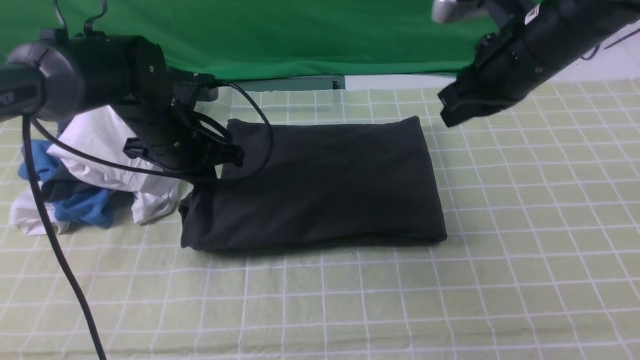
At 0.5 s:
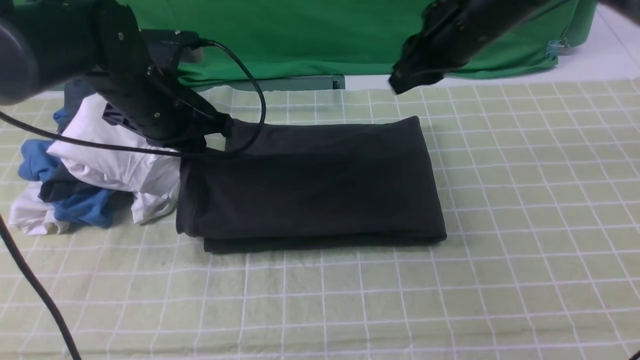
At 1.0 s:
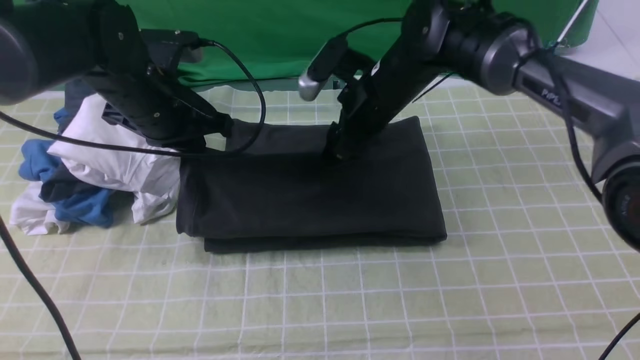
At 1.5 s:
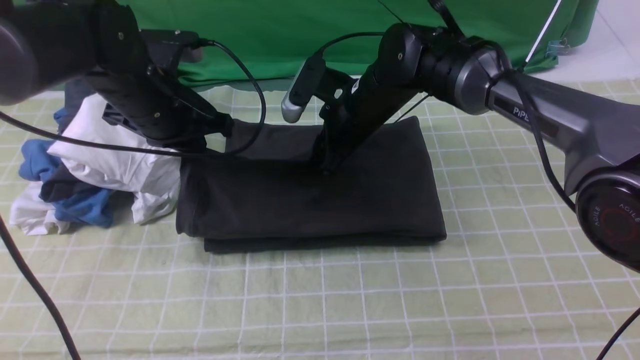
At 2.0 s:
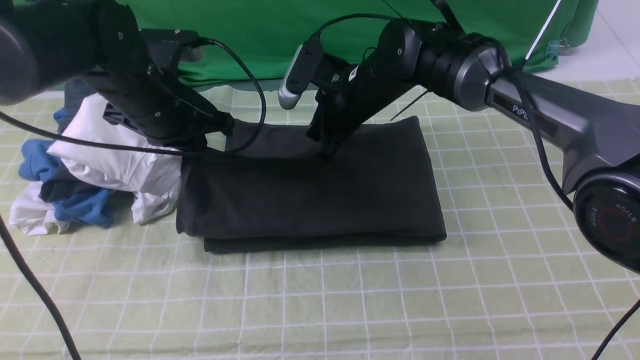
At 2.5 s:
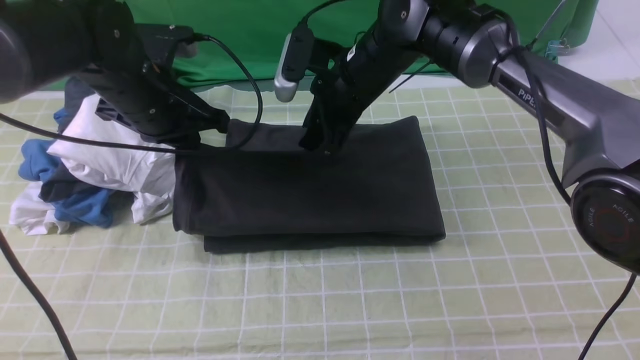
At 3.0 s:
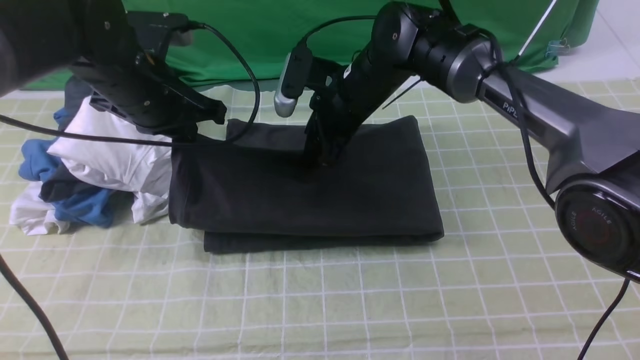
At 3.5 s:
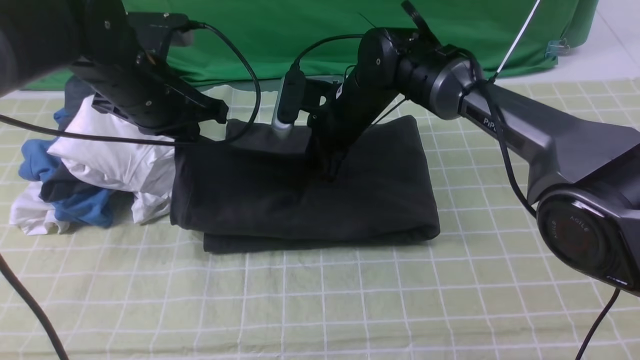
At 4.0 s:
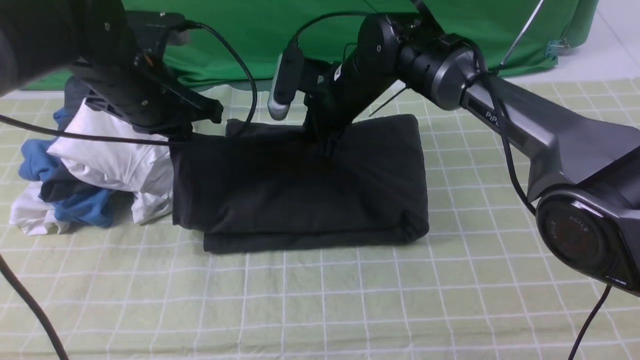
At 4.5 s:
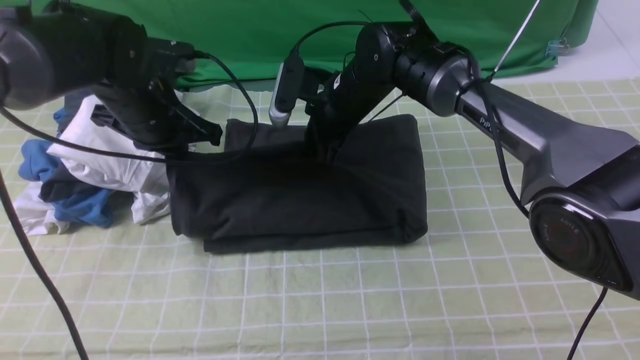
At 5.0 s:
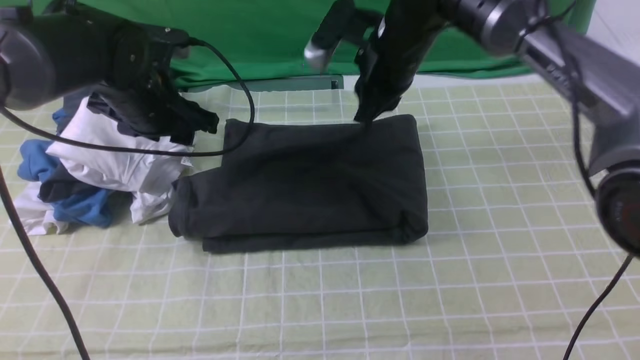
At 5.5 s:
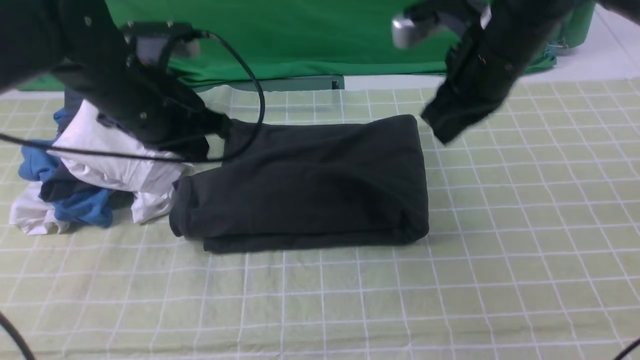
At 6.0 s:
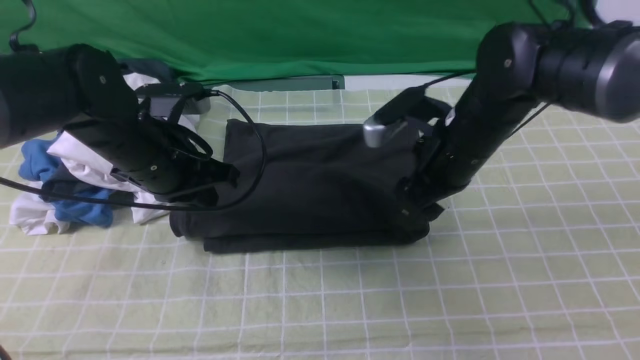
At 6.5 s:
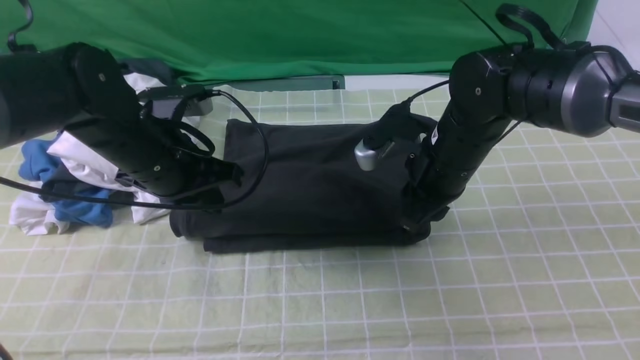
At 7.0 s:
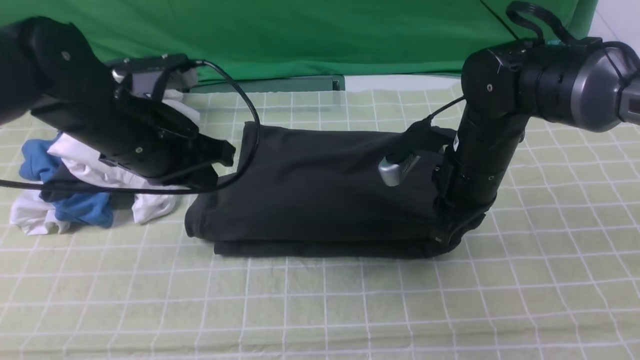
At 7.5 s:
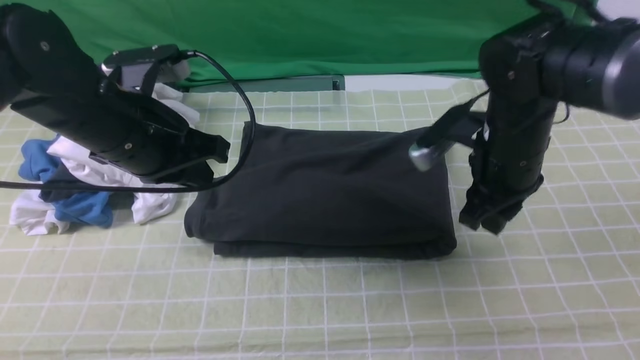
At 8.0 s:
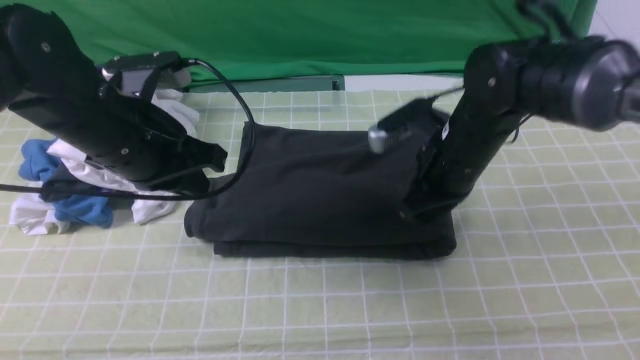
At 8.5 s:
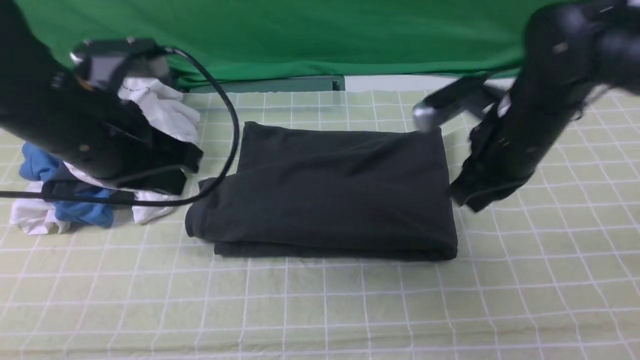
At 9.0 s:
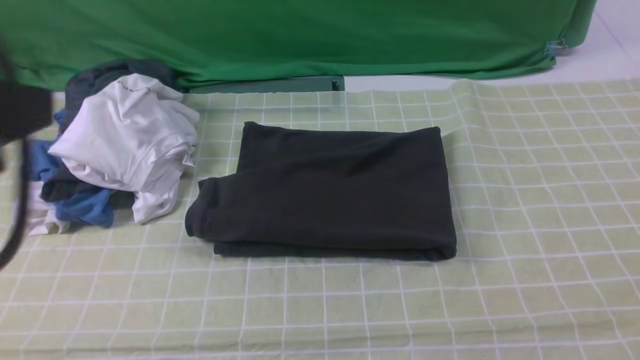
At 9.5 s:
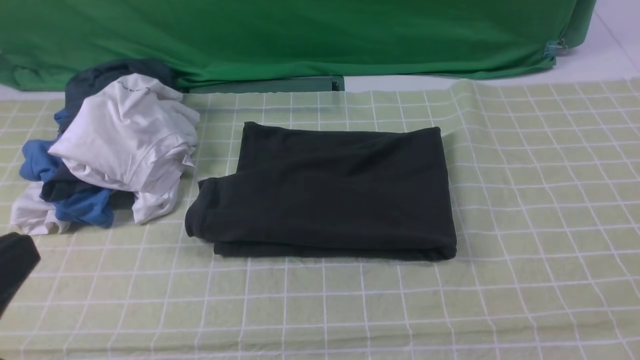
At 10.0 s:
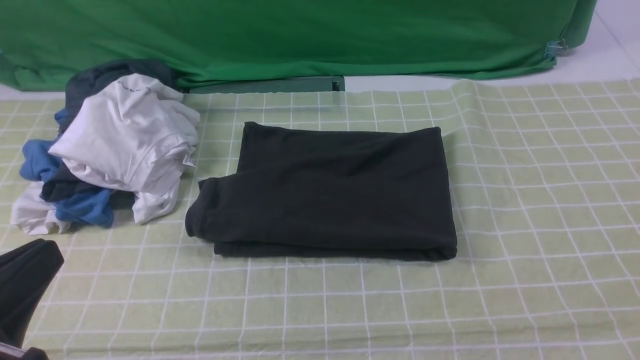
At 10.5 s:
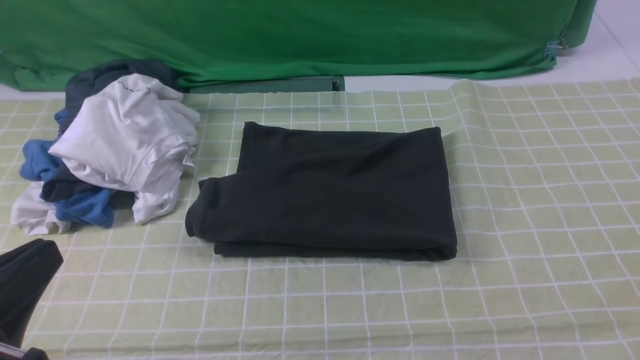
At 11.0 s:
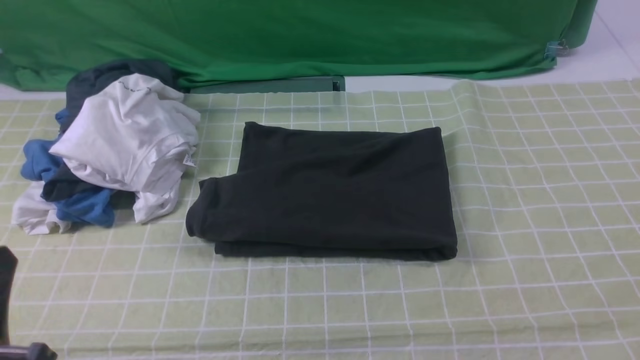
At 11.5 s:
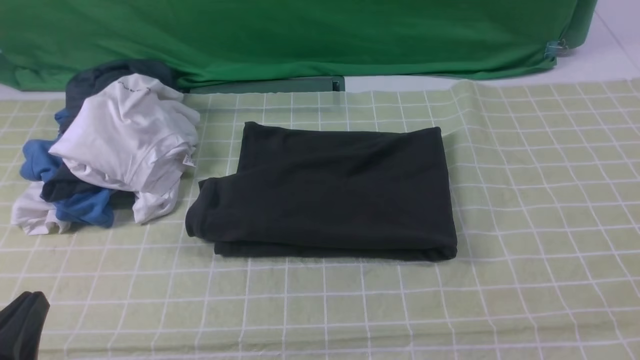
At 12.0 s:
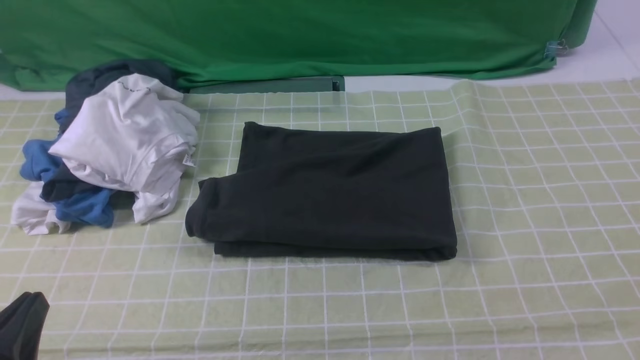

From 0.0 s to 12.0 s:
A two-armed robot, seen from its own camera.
From 0.0 s to 2.0 s: The right gripper is displaced to the left, downward and forward by roughly 20 cm, and opens, then closes once more.
From 2.0 s to 4.0 s: The right gripper opens and closes again.
From 4.0 s to 6.0 s: The left gripper ends up approximately 5 cm from where it was, and opens, then closes once more. Meanwhile the right gripper heads to the right and backward, covering some 15 cm, and opens up.
From 6.0 s to 8.0 s: The left gripper changes place by about 5 cm, while the right gripper closes up.
From 8.0 s to 10.0 s: The left gripper heads backward, covering approximately 25 cm. The right gripper shifts roughly 40 cm backward, to the right and upward.
From 10.0 s to 12.0 s: The left gripper is displaced downward by about 10 cm.

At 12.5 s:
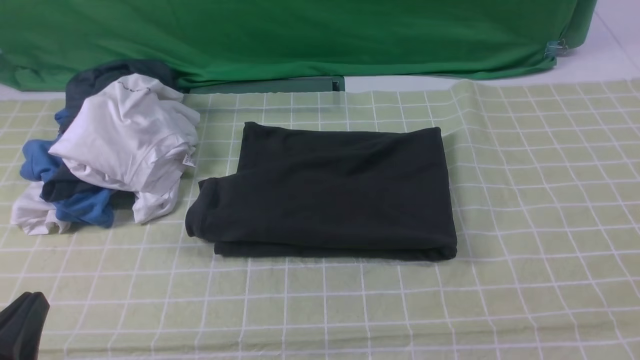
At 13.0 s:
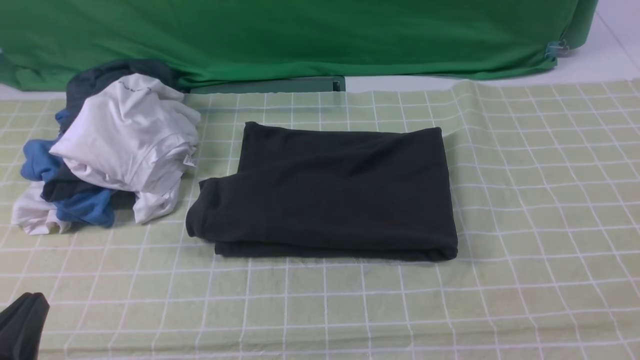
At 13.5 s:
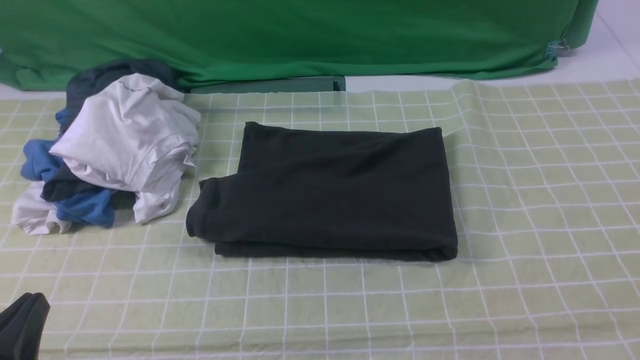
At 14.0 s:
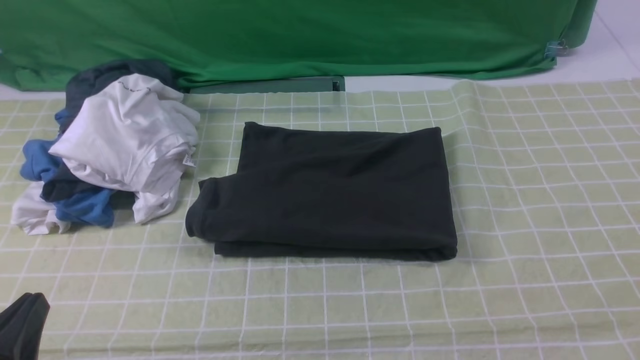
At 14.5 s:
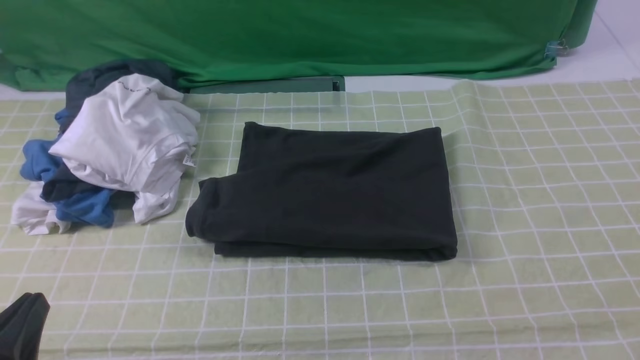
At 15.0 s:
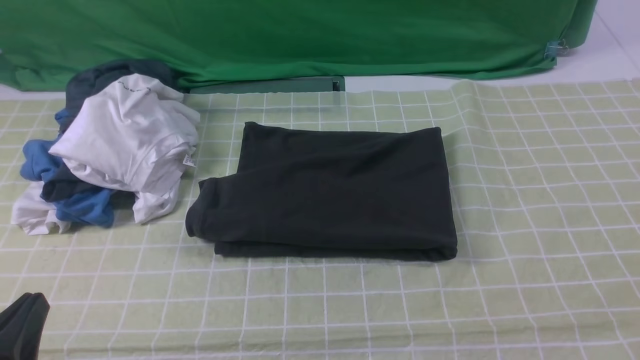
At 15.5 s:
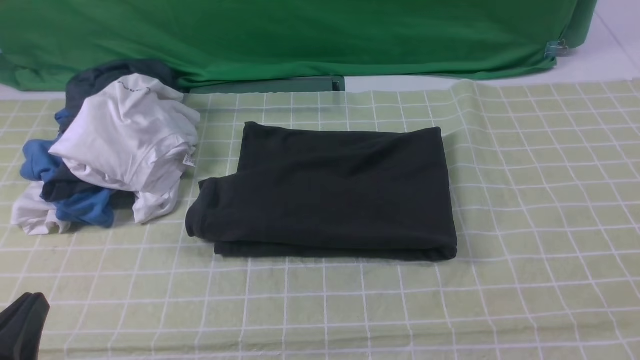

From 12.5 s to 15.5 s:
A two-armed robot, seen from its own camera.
From 14.0 s to 15.5 s: Neither gripper changes place.

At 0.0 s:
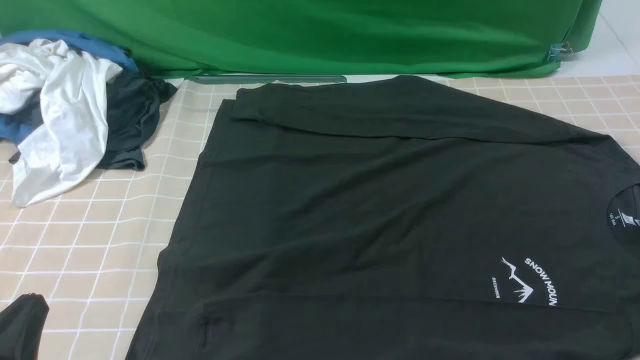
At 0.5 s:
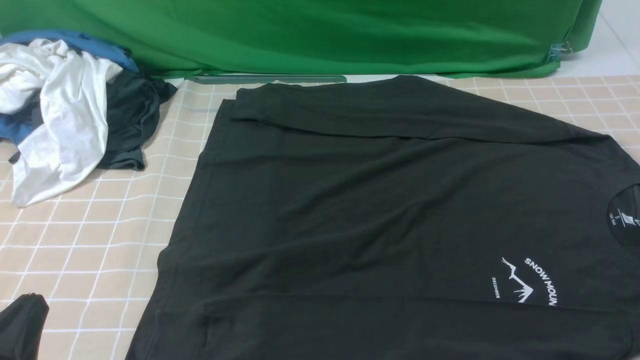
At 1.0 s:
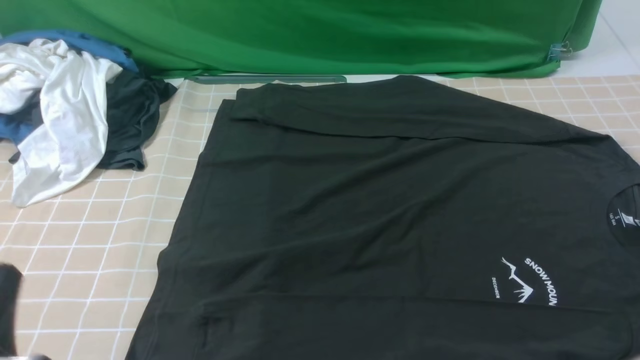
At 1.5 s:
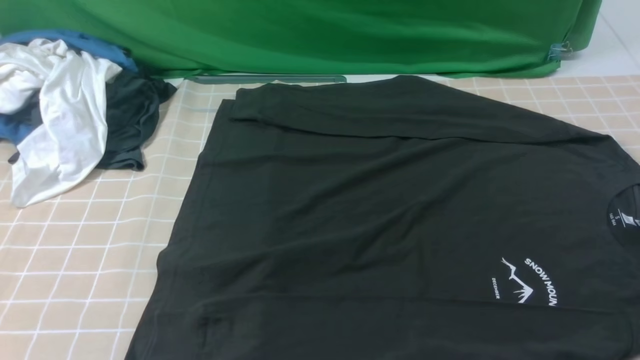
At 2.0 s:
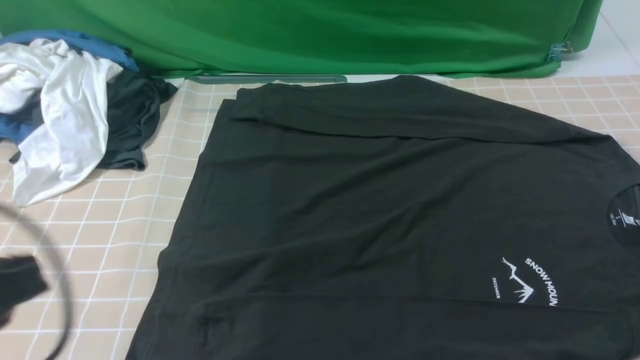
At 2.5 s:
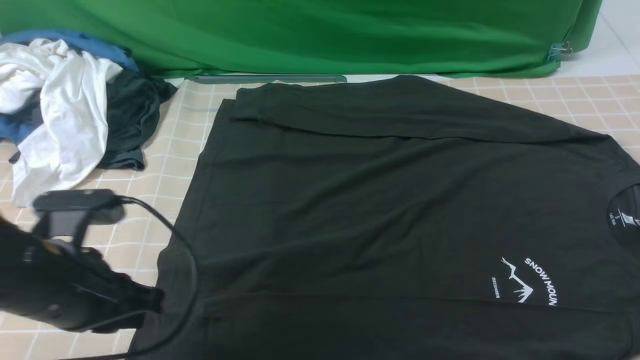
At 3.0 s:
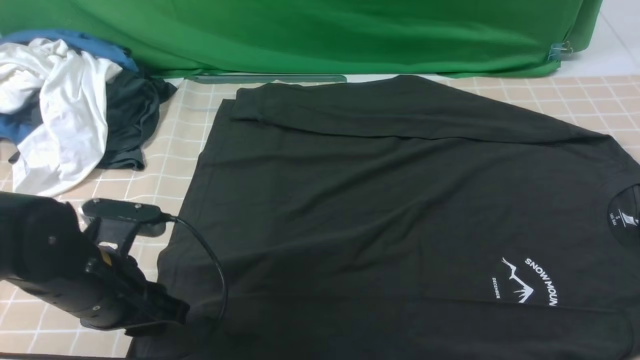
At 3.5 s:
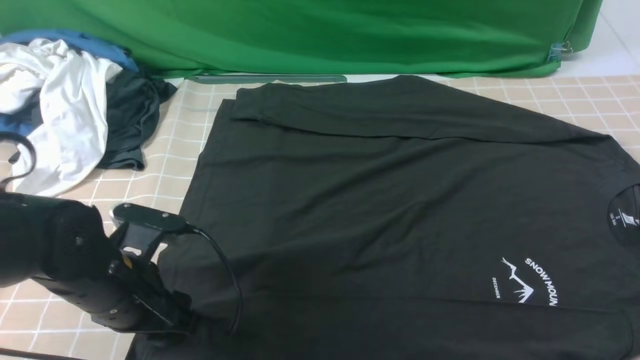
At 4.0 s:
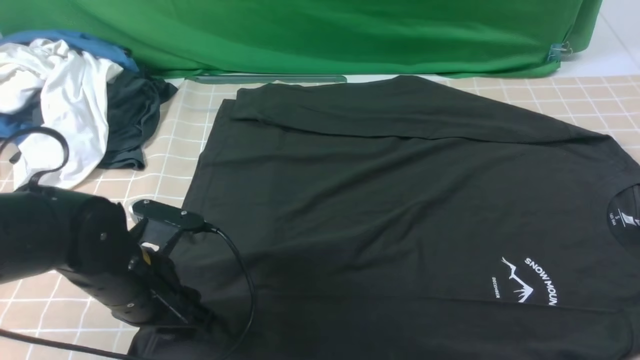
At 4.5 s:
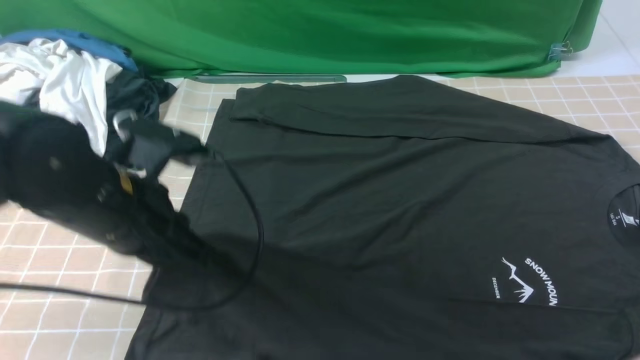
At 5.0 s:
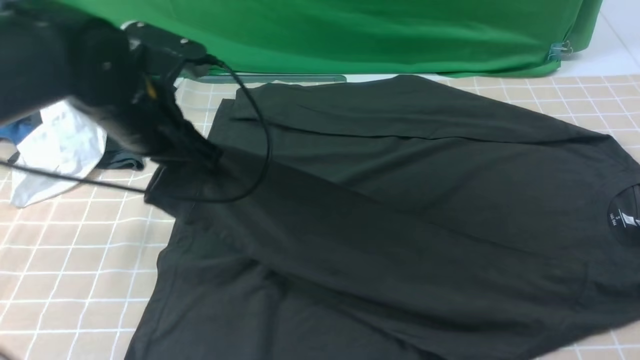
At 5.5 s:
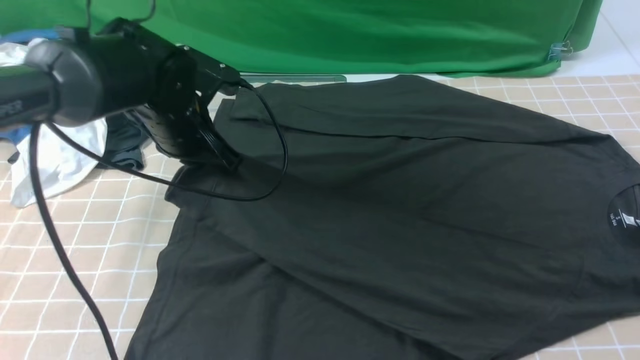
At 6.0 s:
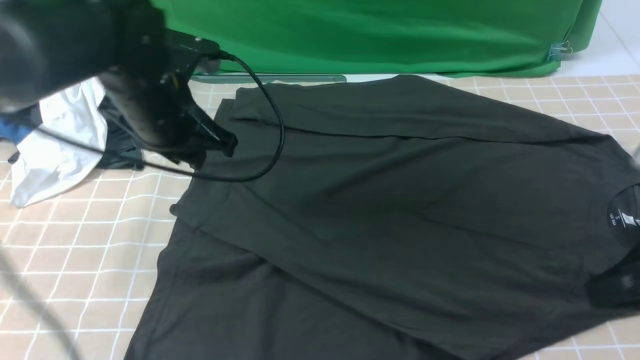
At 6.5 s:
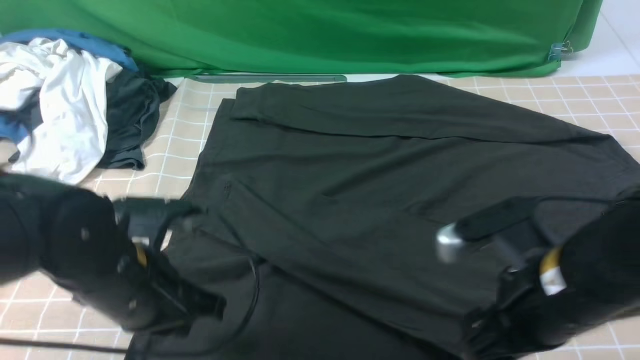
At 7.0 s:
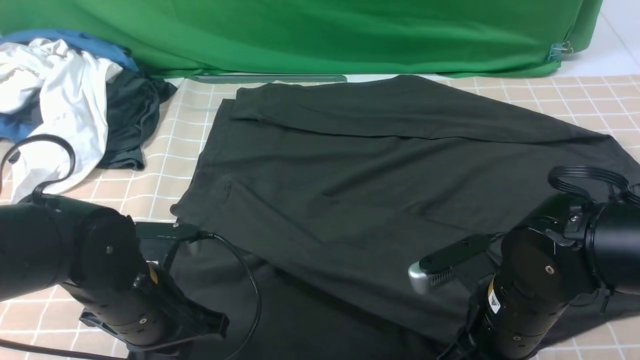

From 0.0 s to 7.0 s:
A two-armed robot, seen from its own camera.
Step, from 0.0 s to 4.0 s: use the left arm to clamp the cuff closest to it.
Step, from 4.5 s to 5.5 s: use the left arm to drag and place the cuff at the centered position on the left edge of the fabric.
From 0.0 s to 2.0 s: The left gripper moves upward and forward, about 10 cm.
From 2.0 s to 3.5 s: The left gripper heads downward, forward and to the right, covering some 15 cm, and opens.
From 3.5 s to 5.0 s: The left gripper goes roughly 15 cm forward and upward, and closes up.
From 5.0 s to 7.0 s: The right gripper moves downward and to the left, about 25 cm, and opens, then closes once more. The left gripper is displaced backward and downward by some 15 cm.
